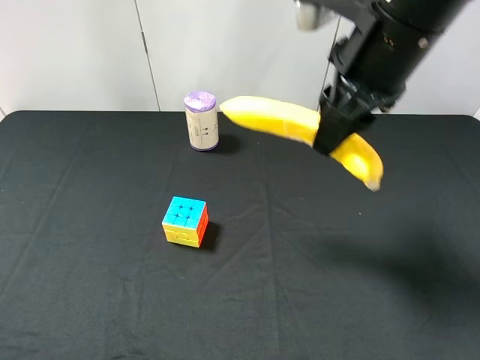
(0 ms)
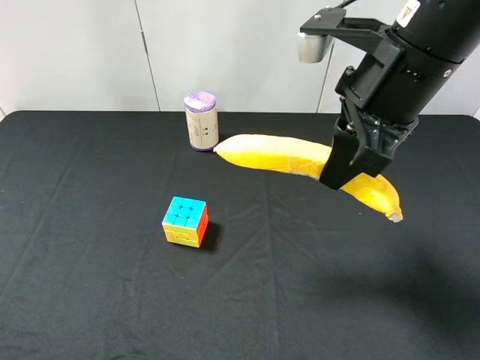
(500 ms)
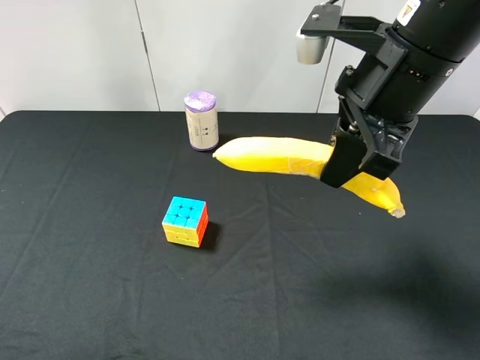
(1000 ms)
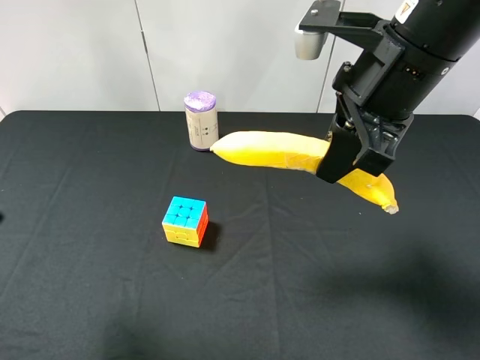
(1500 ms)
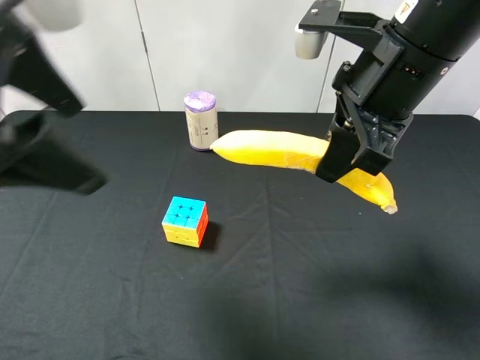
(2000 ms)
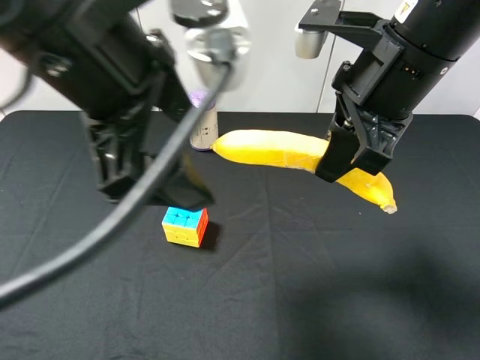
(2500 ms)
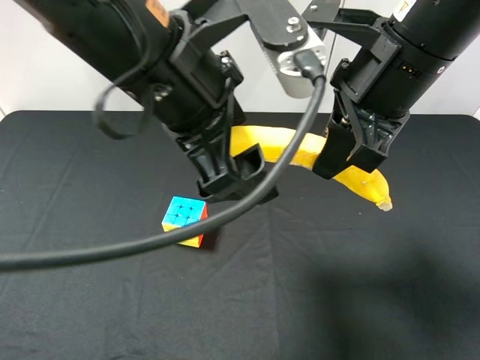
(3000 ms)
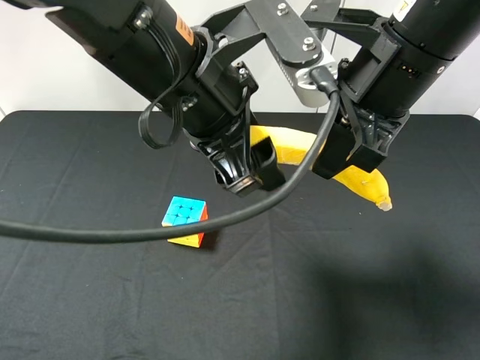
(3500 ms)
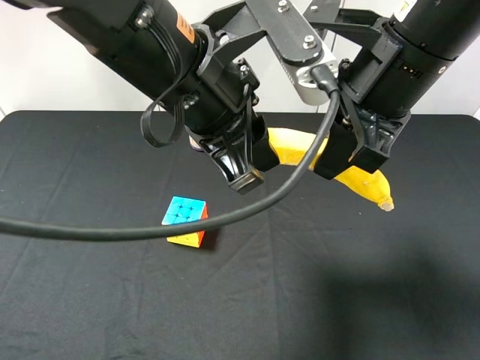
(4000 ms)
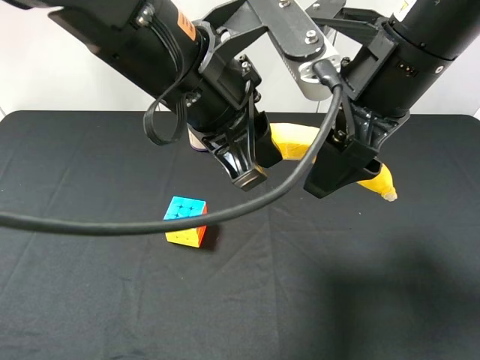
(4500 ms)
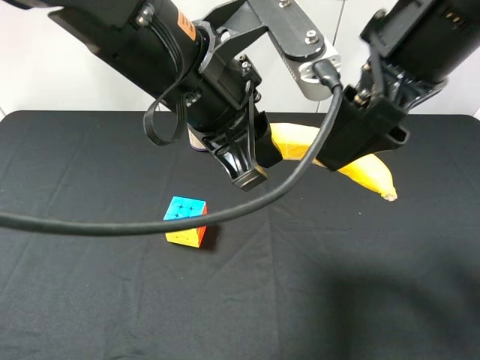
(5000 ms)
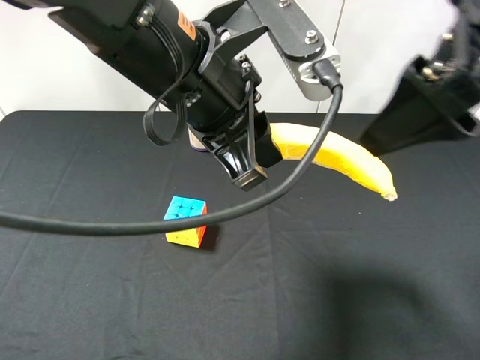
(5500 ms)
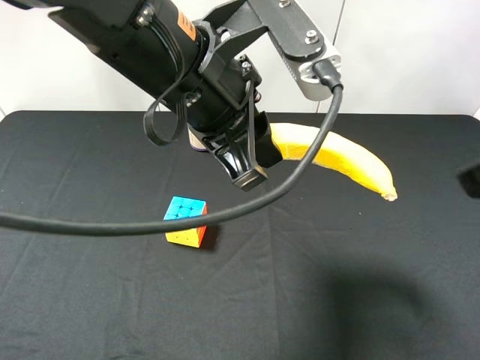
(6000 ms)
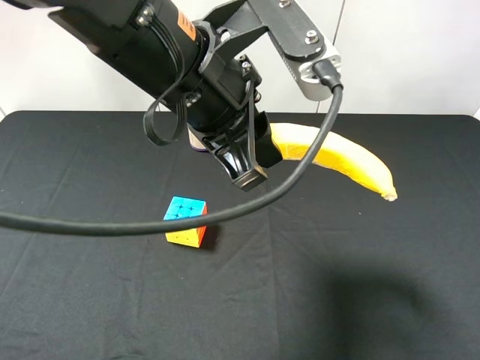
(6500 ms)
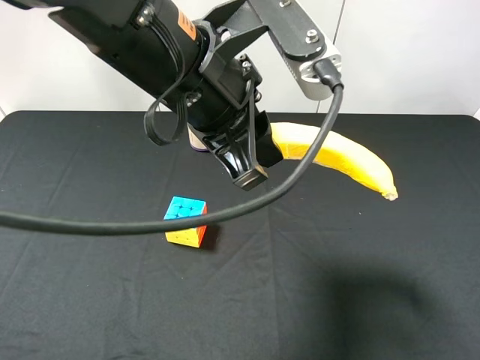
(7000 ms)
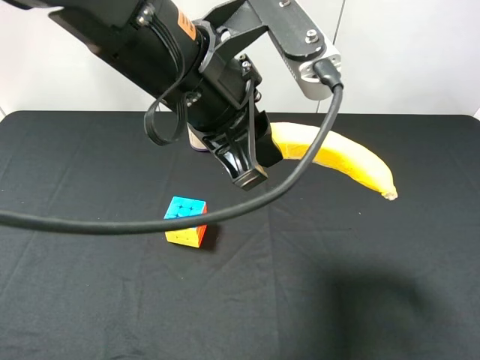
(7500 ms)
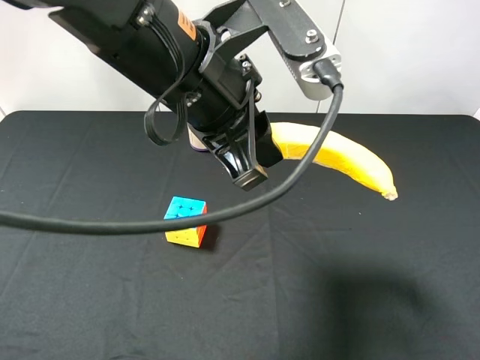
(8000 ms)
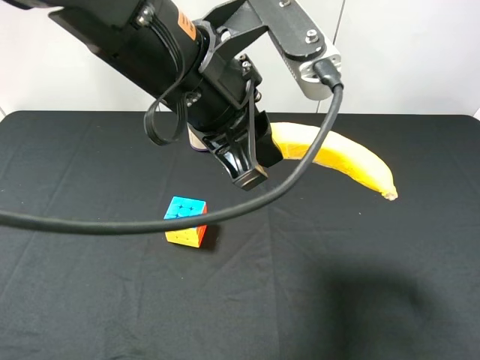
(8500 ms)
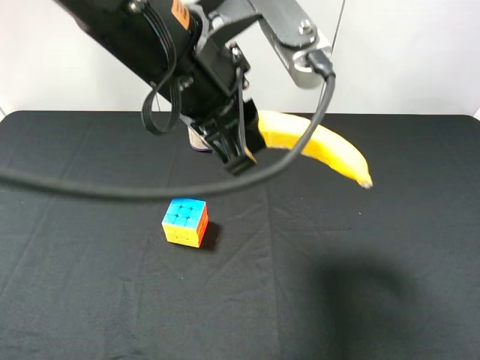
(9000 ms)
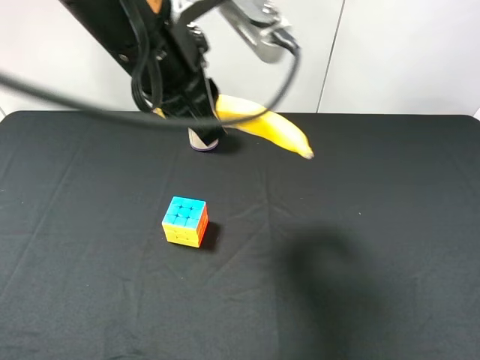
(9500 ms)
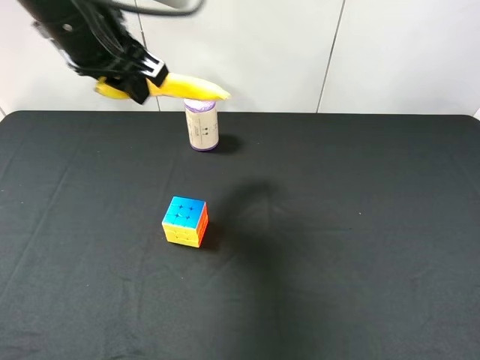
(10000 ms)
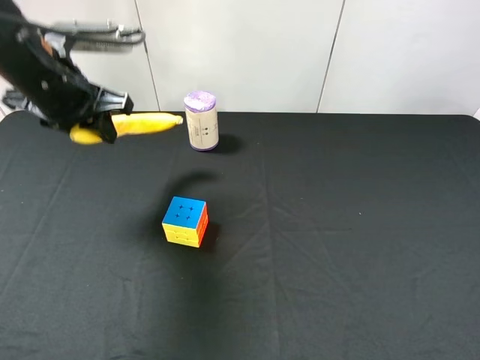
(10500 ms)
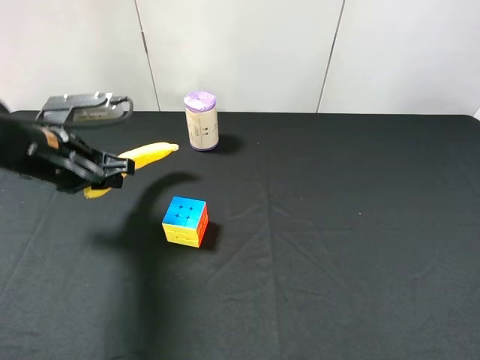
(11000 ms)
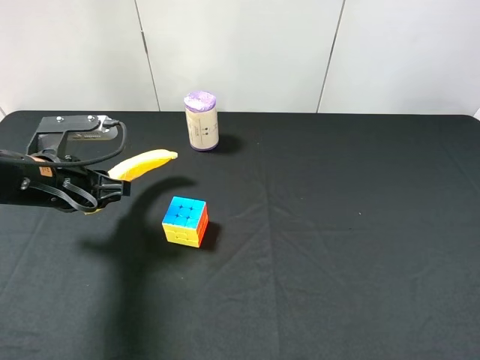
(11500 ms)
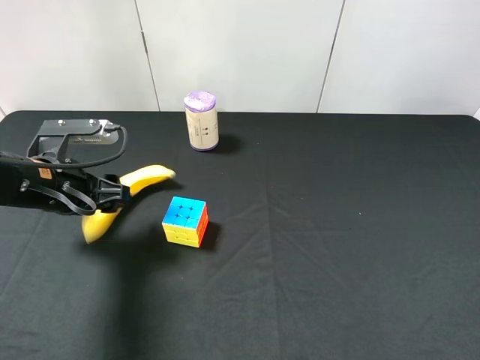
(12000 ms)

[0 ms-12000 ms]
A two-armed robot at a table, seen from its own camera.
Task of the whole recording: use the right gripper to pick up the item and transfer it from the right gripper to the left gripper.
Step, 0 ms to 4500 ms: Pass the banana to the left gripper.
0 ms to 2000 ms: The left gripper travels forward, to the right and upward by approximately 25 cm.
2000 ms to 4000 ms: The left gripper is displaced to the right and downward by approximately 15 cm, and closes its fingers.
4000 ms to 6000 ms: The right gripper travels backward and to the right by about 20 cm, and opens.
6000 ms to 8000 ms: The right gripper travels backward, downward and to the right by about 15 cm.
8000 ms to 10000 ms: The left gripper travels to the left and forward by about 15 cm.
10000 ms to 12000 ms: The left gripper moves downward and to the left, some 20 cm, and opens.

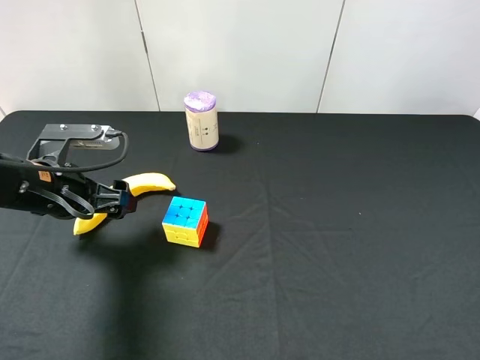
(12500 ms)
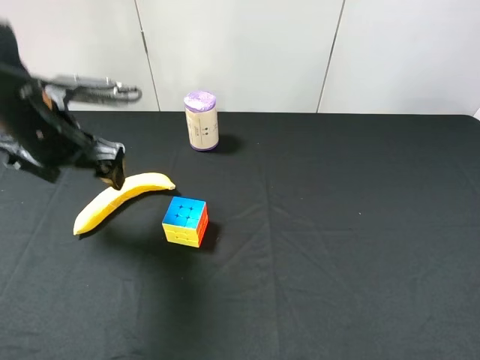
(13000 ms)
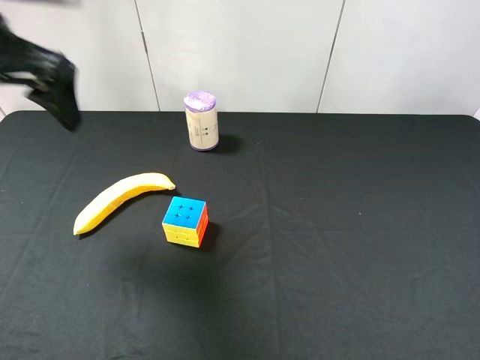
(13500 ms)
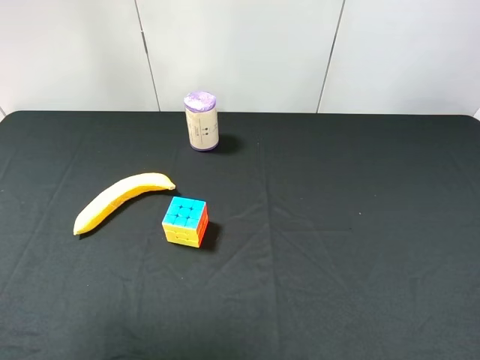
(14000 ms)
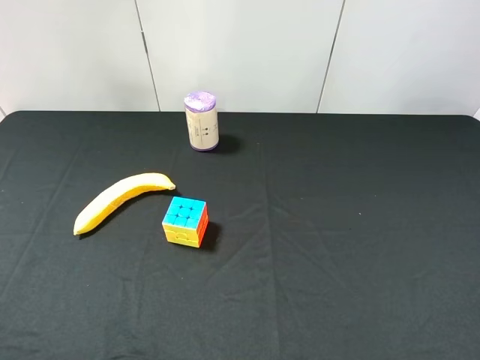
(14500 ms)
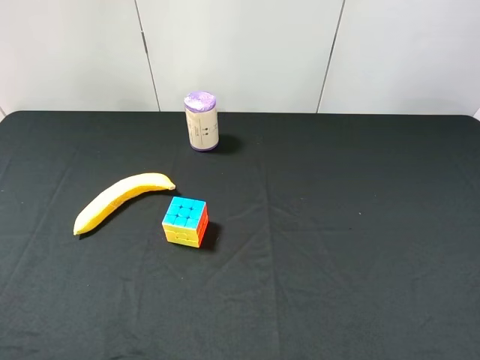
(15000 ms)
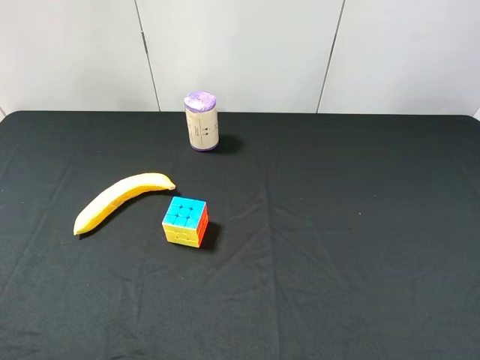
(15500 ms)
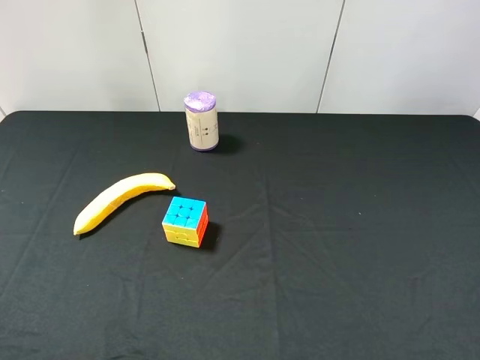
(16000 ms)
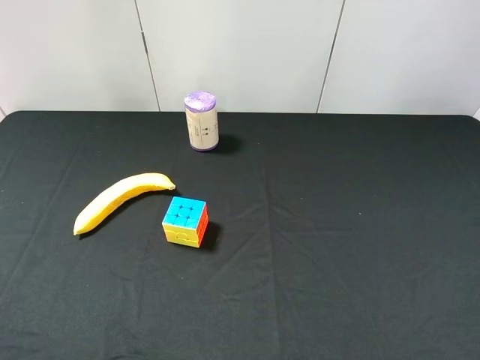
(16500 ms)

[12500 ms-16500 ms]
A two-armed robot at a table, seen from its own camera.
Task of the whole recording: use the right gripper to pick up the item and transfer it from the right gripper to the left gripper.
12500 ms to 14500 ms: The left gripper shifts about 30 cm backward, upward and to the left.
